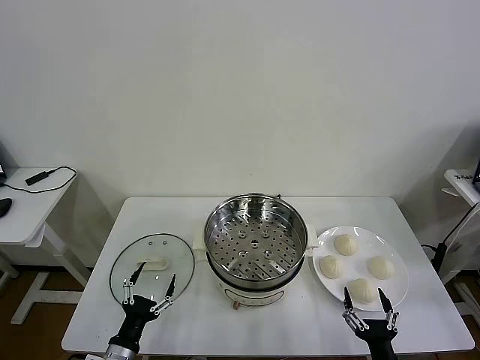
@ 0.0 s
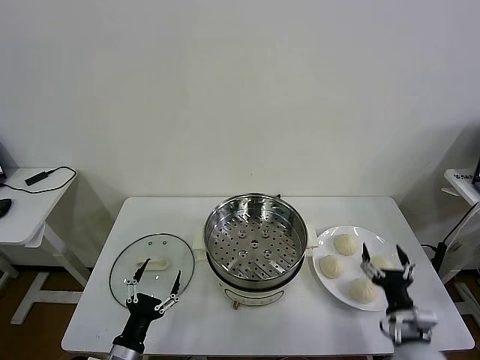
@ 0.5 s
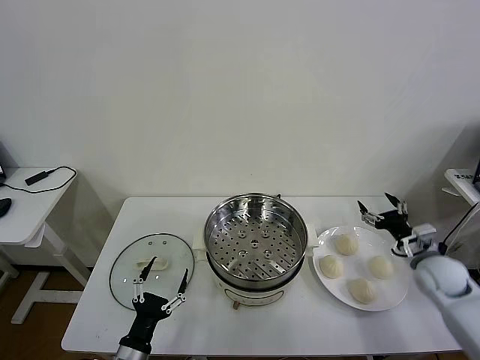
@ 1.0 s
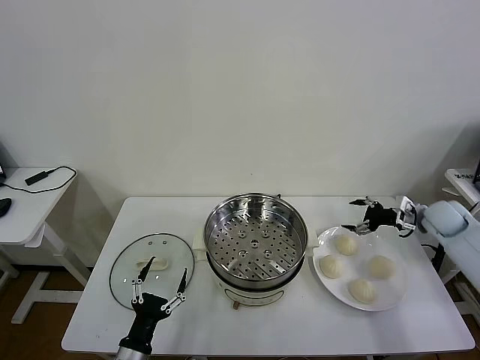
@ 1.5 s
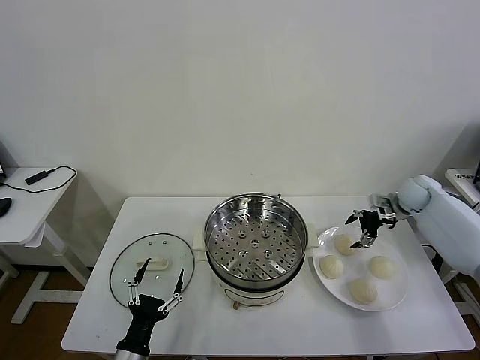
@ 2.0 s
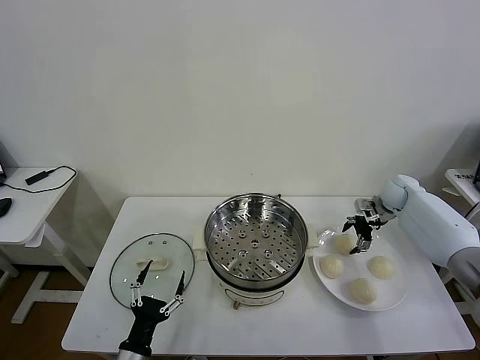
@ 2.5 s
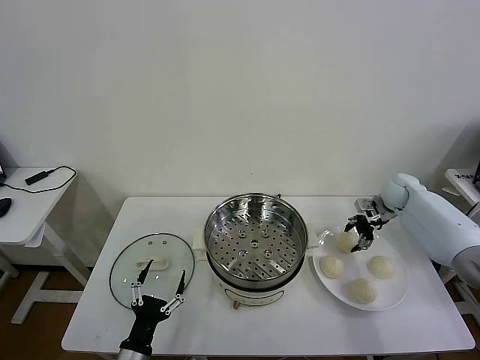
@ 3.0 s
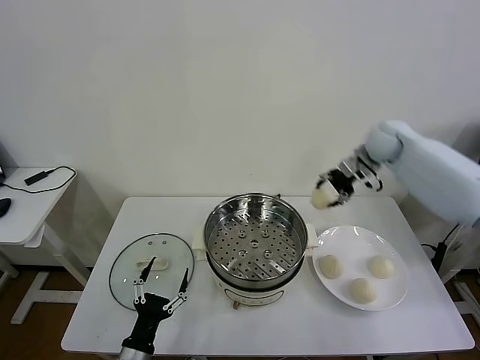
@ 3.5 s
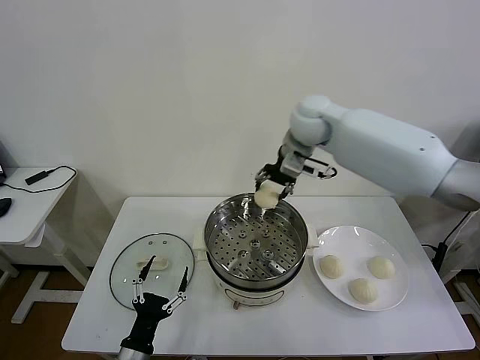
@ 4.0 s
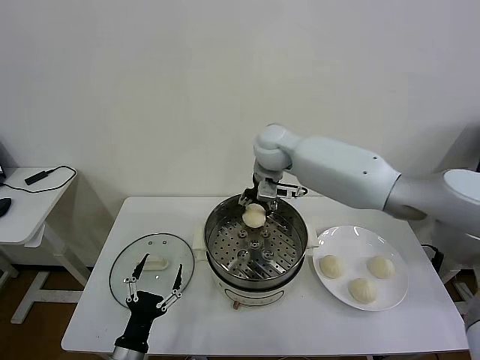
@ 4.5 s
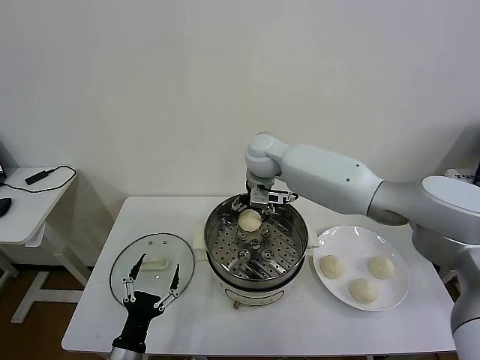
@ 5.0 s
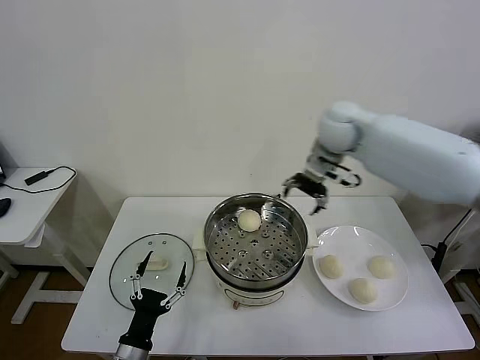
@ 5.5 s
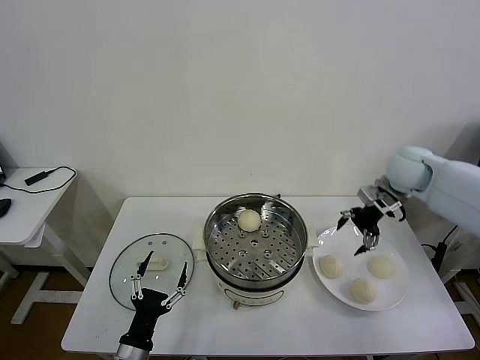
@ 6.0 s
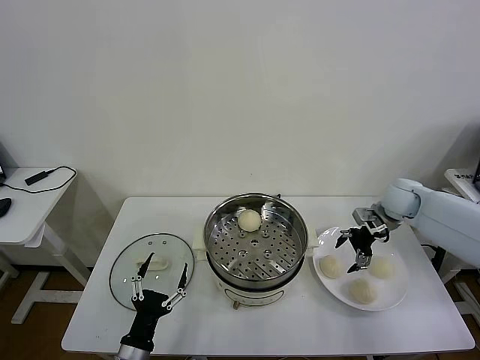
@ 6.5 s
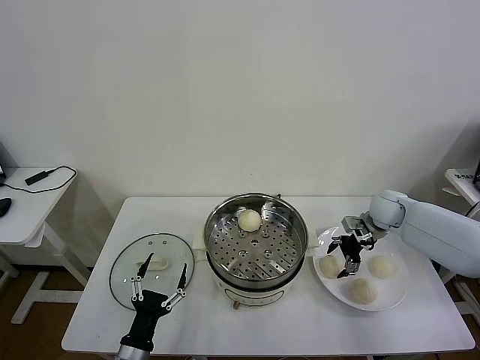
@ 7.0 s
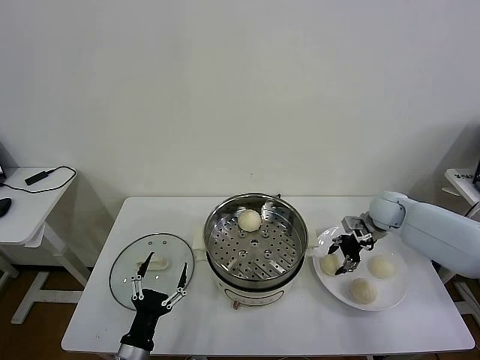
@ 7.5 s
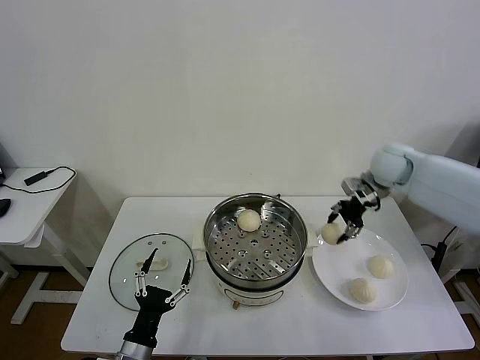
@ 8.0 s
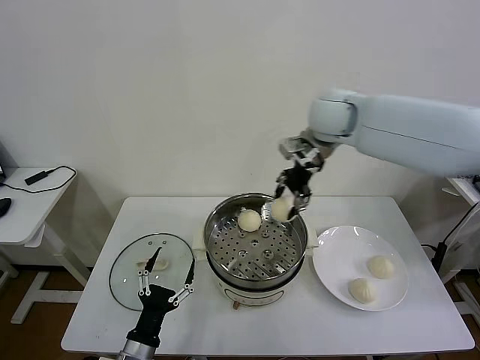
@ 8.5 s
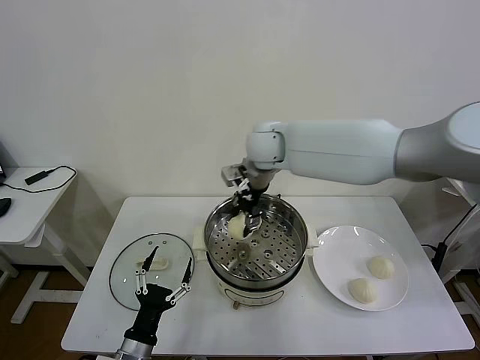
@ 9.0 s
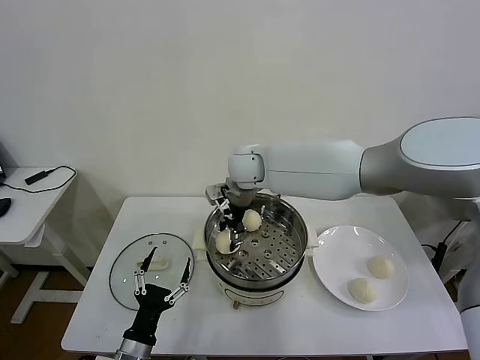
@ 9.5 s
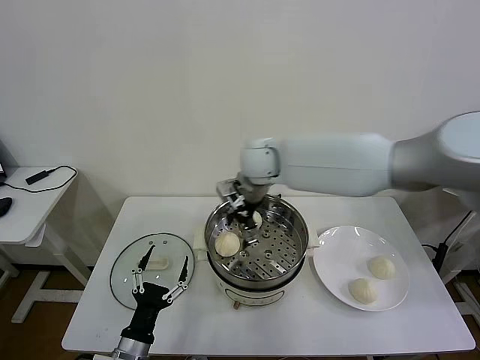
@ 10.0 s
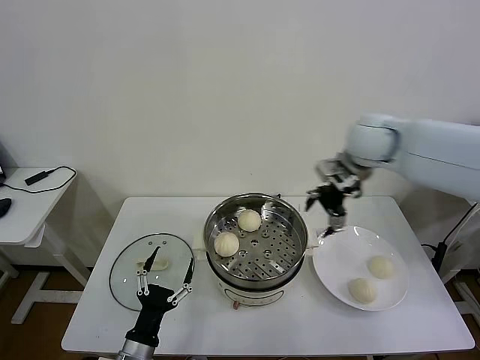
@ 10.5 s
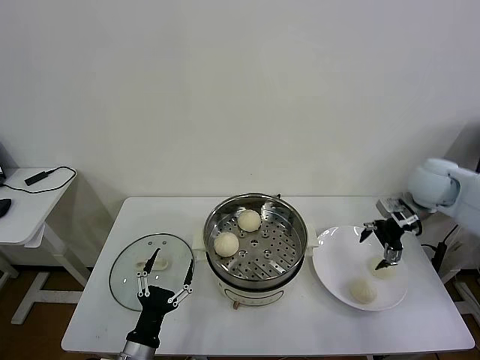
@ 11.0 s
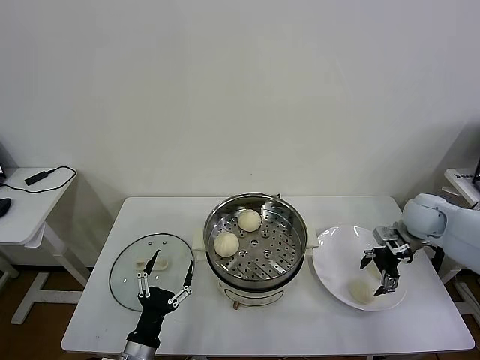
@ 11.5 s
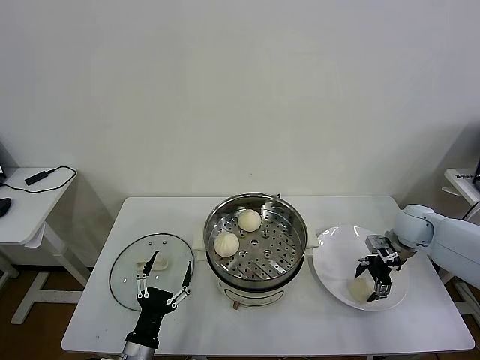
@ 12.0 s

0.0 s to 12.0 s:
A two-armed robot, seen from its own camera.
Task of the whole recording: take steamed baozi put them in steamer then cover it.
Step, 0.0 to 2.5 s: Grasp the baozi in the plate with right gripper.
Step, 3.0 to 5.0 s: Place the baozi on the steamer with right gripper.
Step, 5.5 to 7.0 s: Grasp the baozi in the plate with right gripper.
Step, 7.5 to 9.5 s: Place the baozi on the steamer with right gripper.
2.0 to 4.0 s: The right gripper shifts about 40 cm to the left and upward, and closes its fingers.
4.0 to 6.0 s: The right gripper shifts about 30 cm to the right and downward, and opens up.
6.0 to 8.0 s: The right gripper shifts approximately 5 cm to the left, travels downward and back again, some 10 cm each way, and closes its fingers.
8.0 to 10.0 s: The right gripper shifts some 25 cm to the left, and opens.
10.0 to 12.0 s: The right gripper shifts some 40 cm to the right and downward.

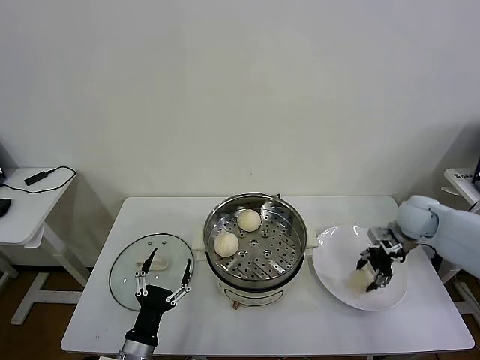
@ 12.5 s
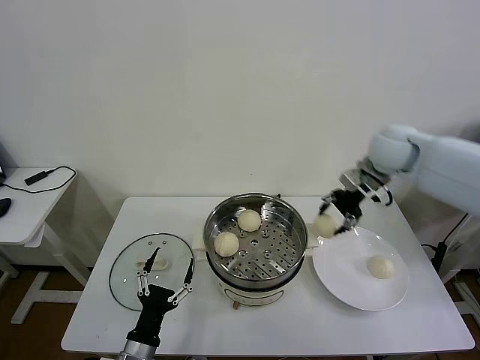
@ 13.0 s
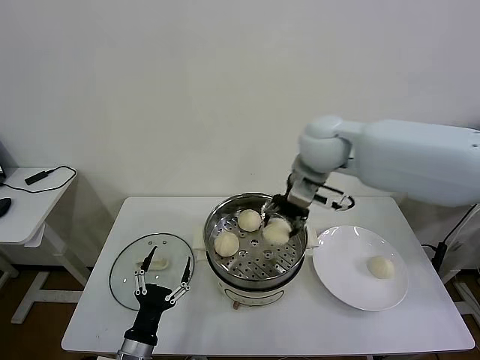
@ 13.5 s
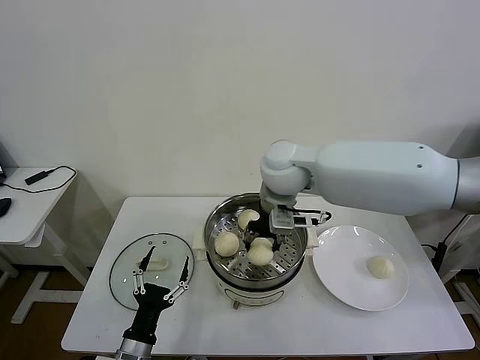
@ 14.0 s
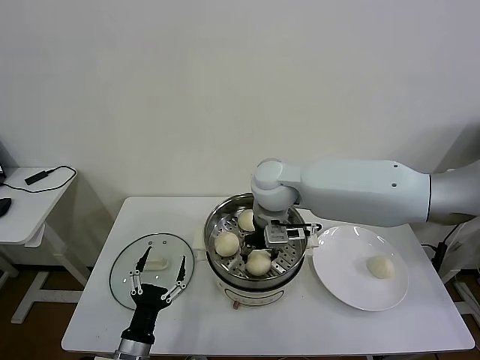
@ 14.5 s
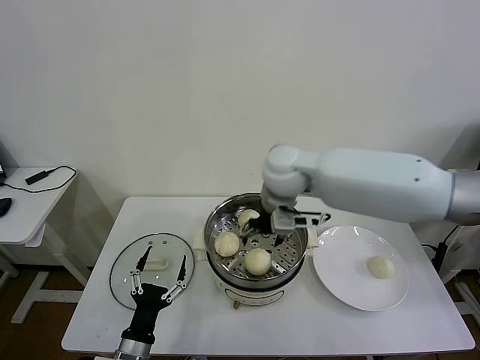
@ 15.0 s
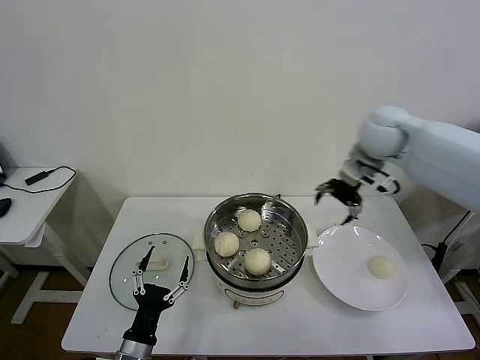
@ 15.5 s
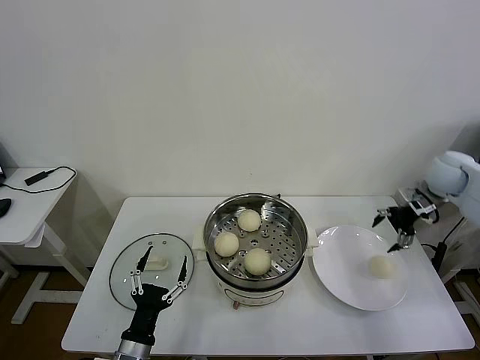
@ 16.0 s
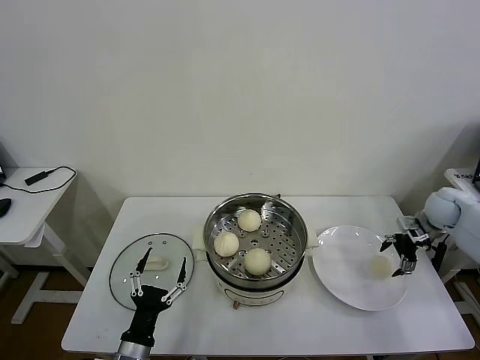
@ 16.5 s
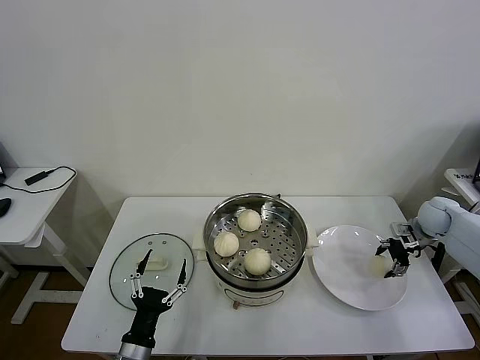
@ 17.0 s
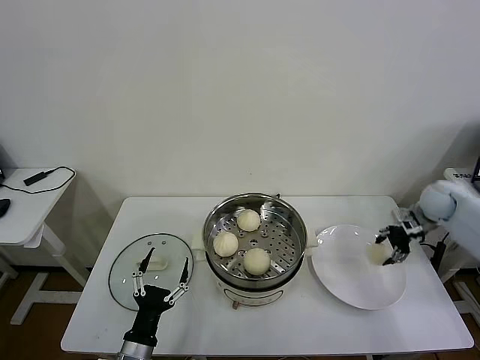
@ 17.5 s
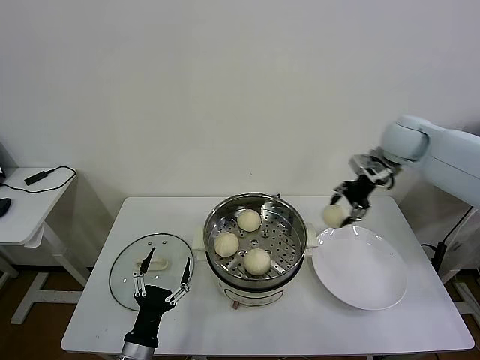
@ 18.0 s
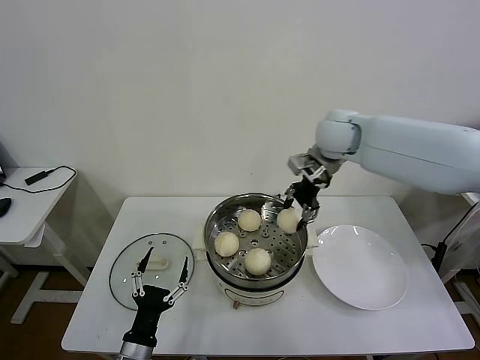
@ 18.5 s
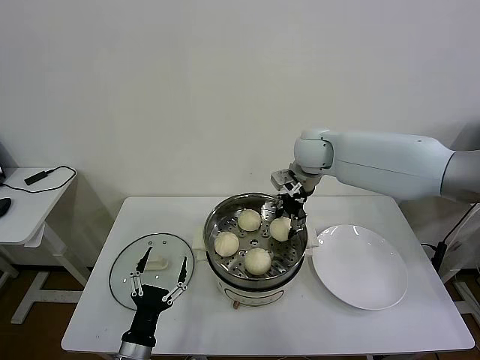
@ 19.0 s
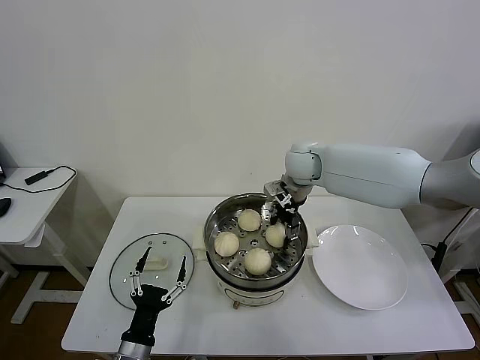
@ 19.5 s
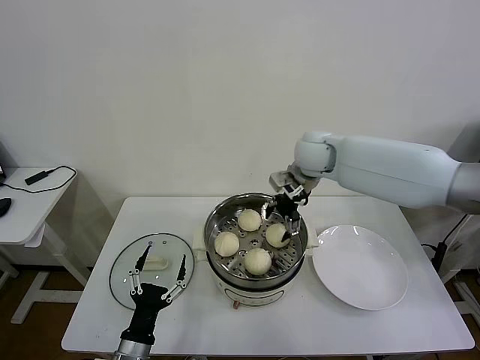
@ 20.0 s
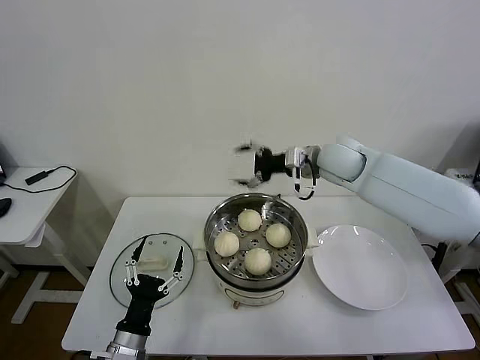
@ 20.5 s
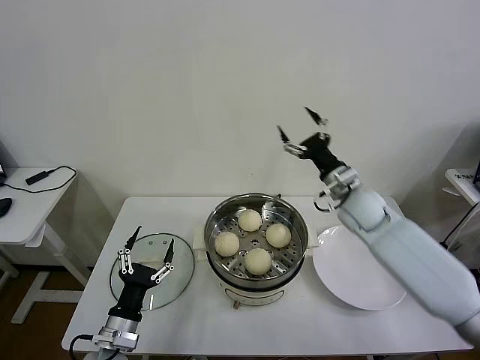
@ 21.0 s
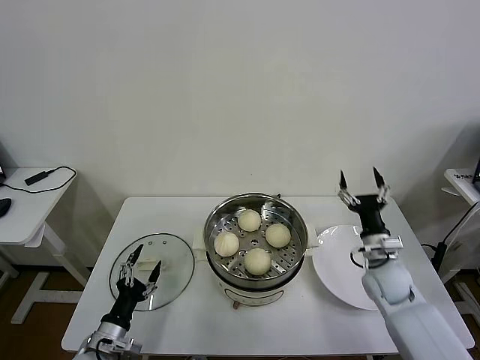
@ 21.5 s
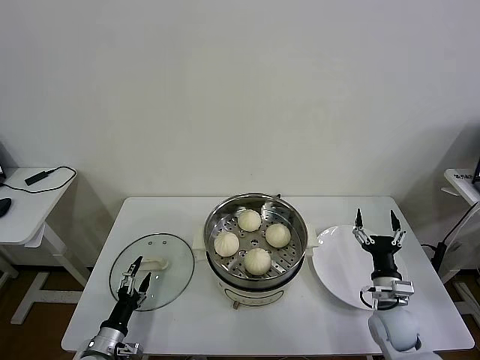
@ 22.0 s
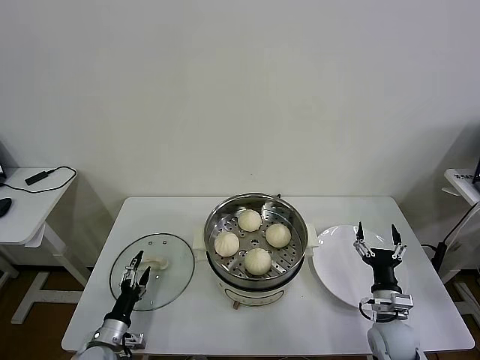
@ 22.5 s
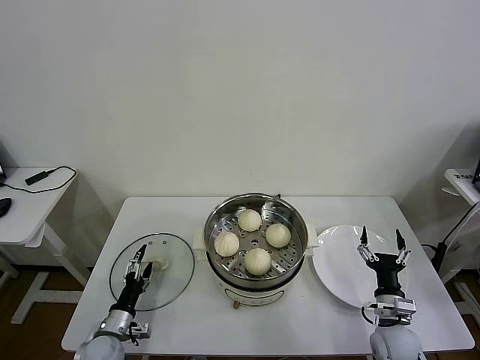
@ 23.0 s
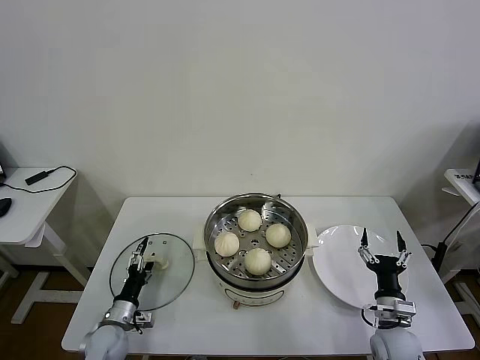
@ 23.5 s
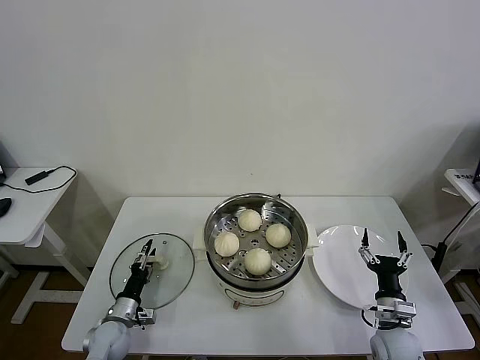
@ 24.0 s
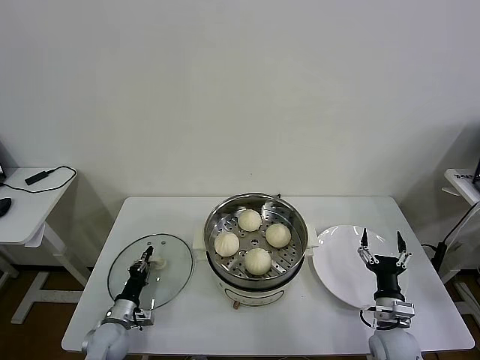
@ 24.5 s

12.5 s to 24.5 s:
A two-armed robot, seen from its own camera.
Task of the whole recording: take steamed baozi put them in steamer then cover it.
Step, 12.5 to 14.5 s: Place the baozi on the steamer with right gripper.
Step, 15.0 to 17.0 s: Grasp the baozi in the plate with right gripper.
Step, 17.5 to 19.5 s: Place the baozi on the steamer with right gripper.
Step, 20.0 to 24.0 s: Grasp the pot lid with left gripper.
12.5 to 14.5 s: The right gripper goes some 35 cm to the left, and opens its fingers.
14.5 to 16.5 s: The right gripper shifts about 40 cm to the right, and opens up.
16.5 to 18.5 s: The right gripper is displaced to the left and upward by approximately 35 cm, and closes up.
18.5 to 20.5 s: The right gripper opens its fingers.
20.5 to 22.5 s: The right gripper shifts about 40 cm downward, backward and to the right. Meanwhile the left gripper heads downward, to the left and forward, covering about 15 cm.
22.5 to 24.5 s: The left gripper is displaced forward by approximately 5 cm, and closes.

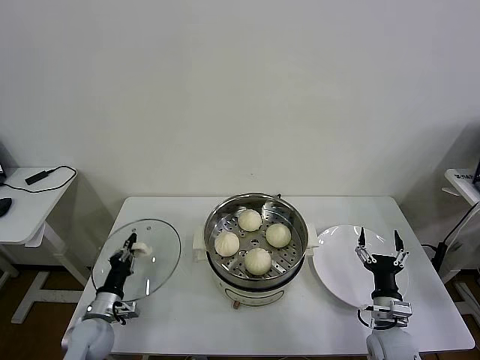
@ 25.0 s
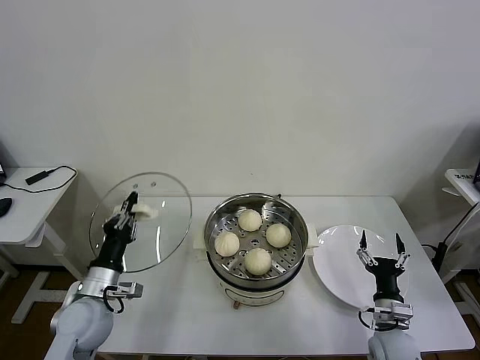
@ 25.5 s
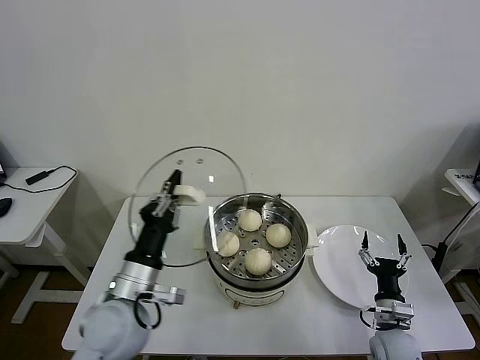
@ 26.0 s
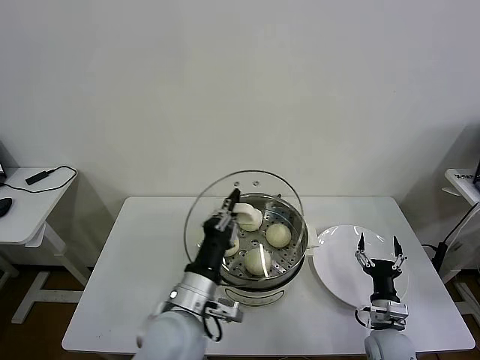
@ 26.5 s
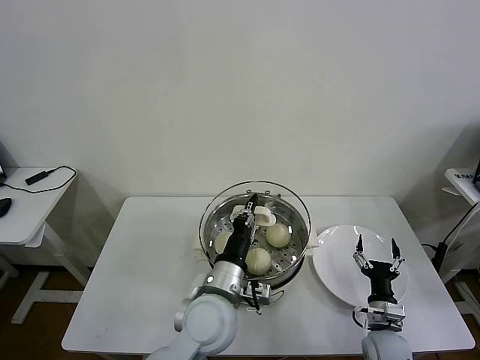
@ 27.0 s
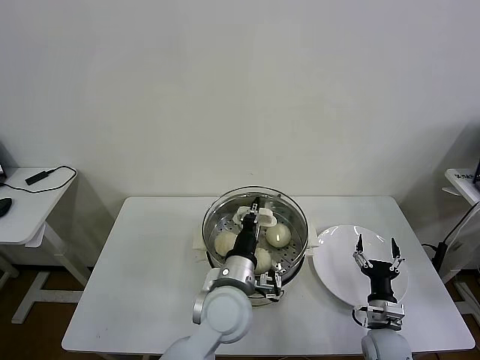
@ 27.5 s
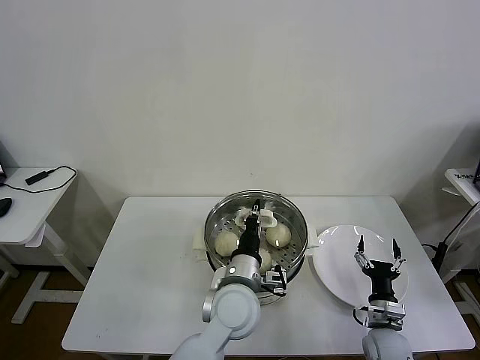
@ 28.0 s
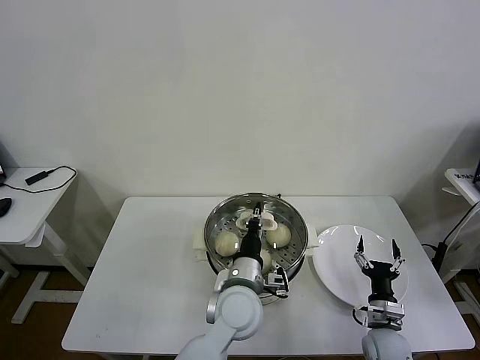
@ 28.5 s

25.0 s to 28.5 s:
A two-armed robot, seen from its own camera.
Task of the whole recording: take steamed baozi put them in steamer then cover it.
25.0 to 27.0 s: The left gripper moves to the right and upward, some 35 cm.
27.0 to 28.5 s: The left gripper moves to the right, some 5 cm.
